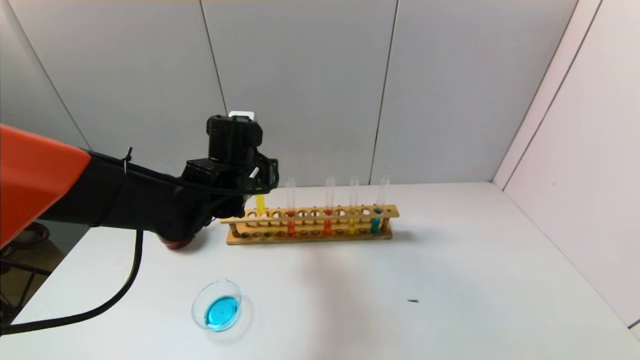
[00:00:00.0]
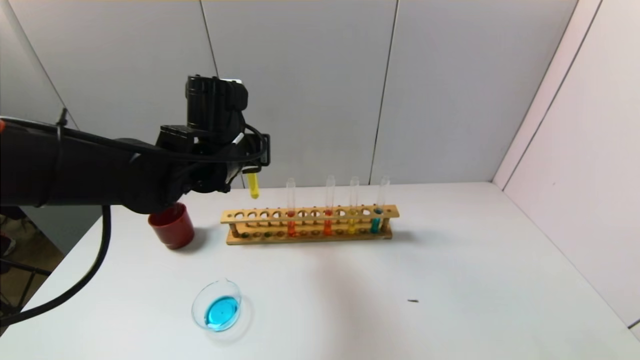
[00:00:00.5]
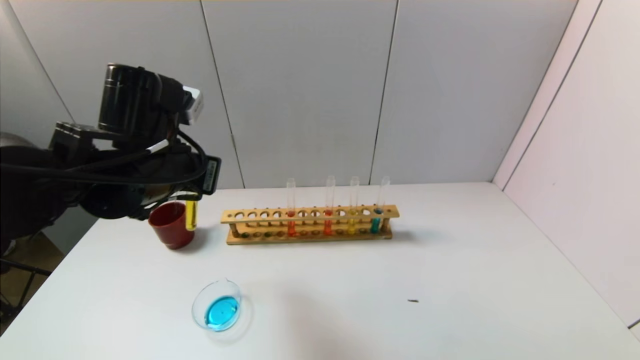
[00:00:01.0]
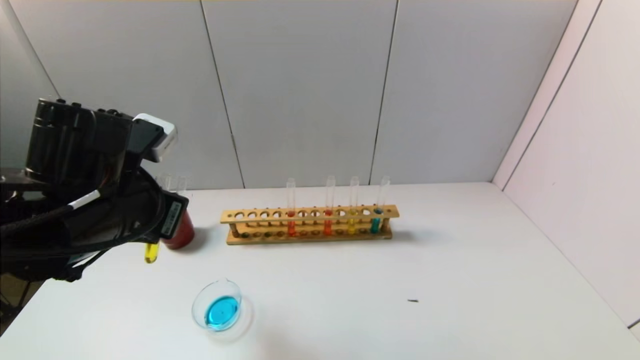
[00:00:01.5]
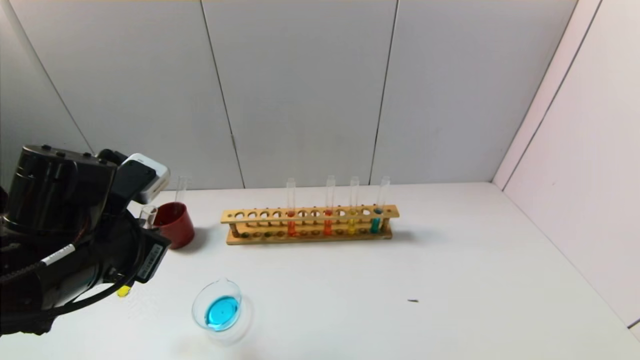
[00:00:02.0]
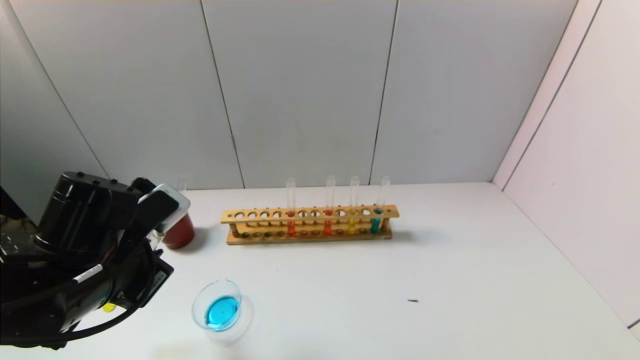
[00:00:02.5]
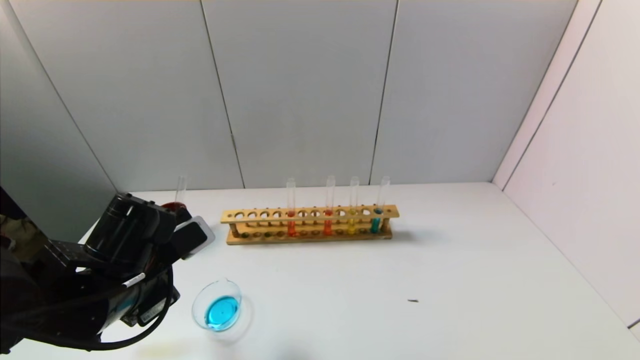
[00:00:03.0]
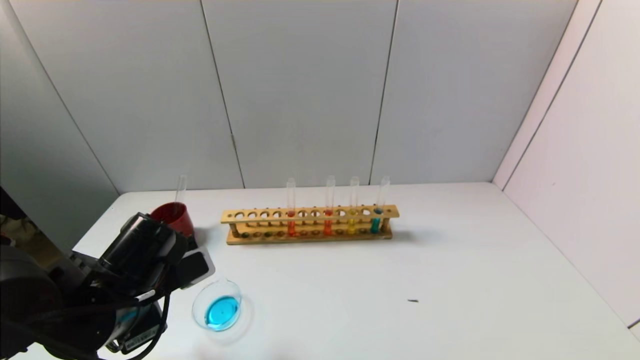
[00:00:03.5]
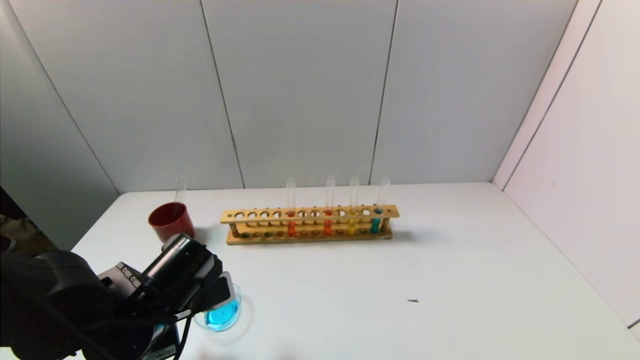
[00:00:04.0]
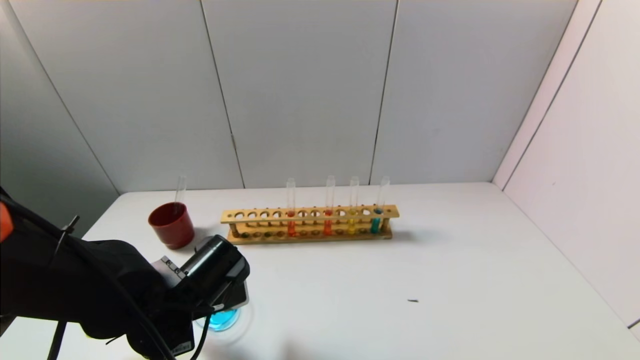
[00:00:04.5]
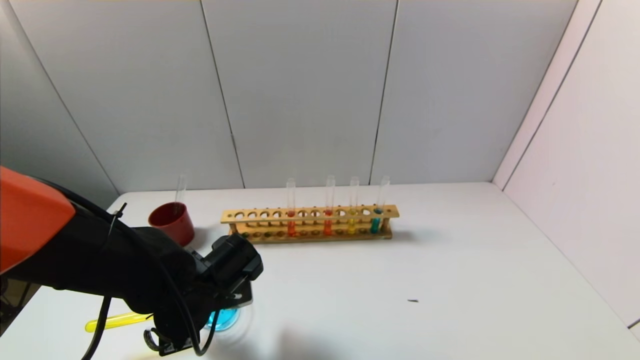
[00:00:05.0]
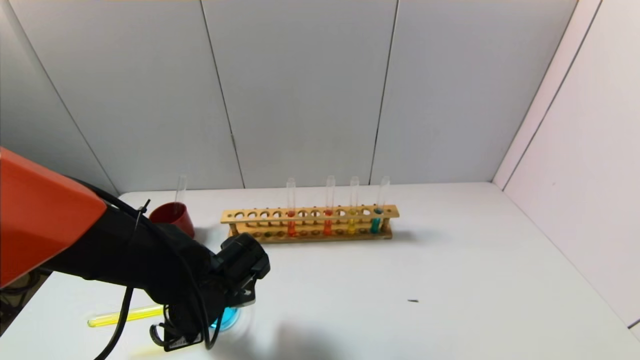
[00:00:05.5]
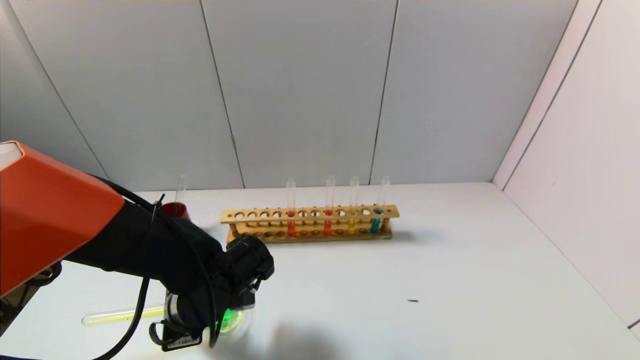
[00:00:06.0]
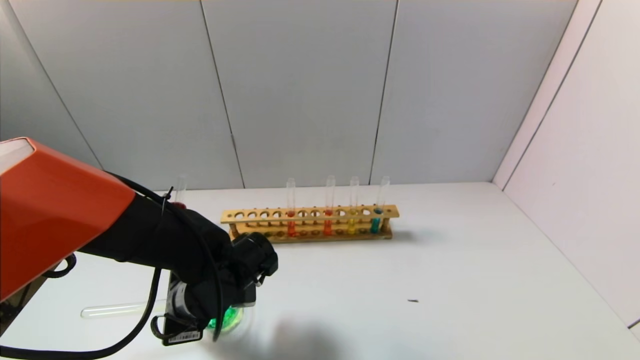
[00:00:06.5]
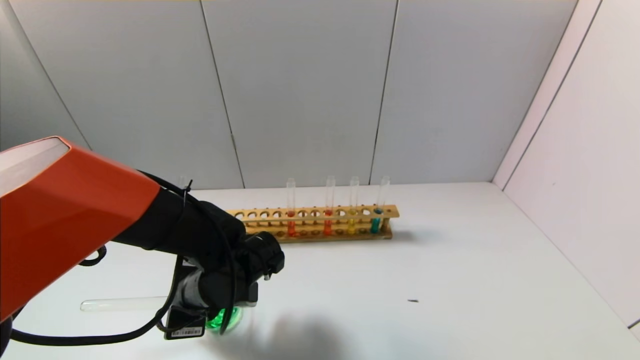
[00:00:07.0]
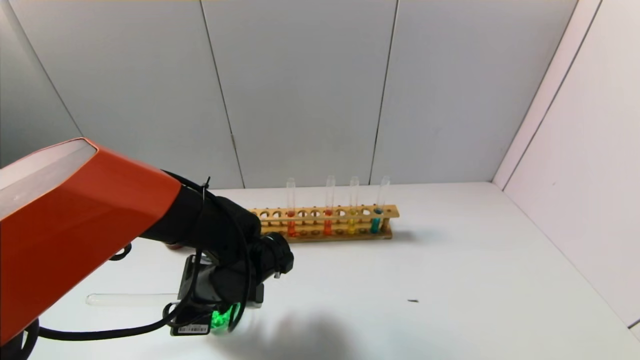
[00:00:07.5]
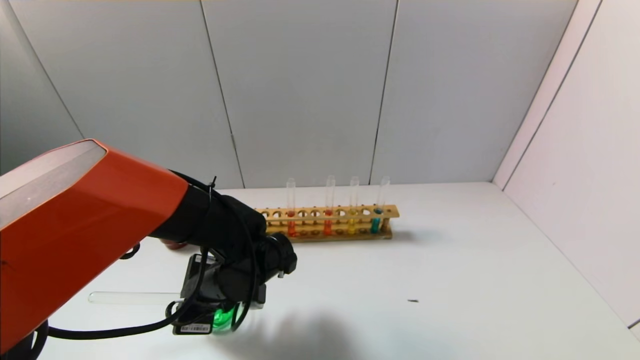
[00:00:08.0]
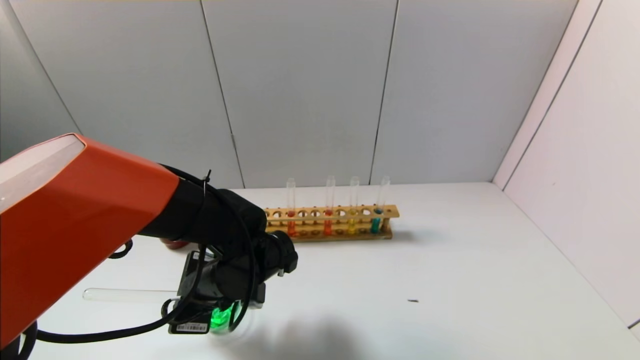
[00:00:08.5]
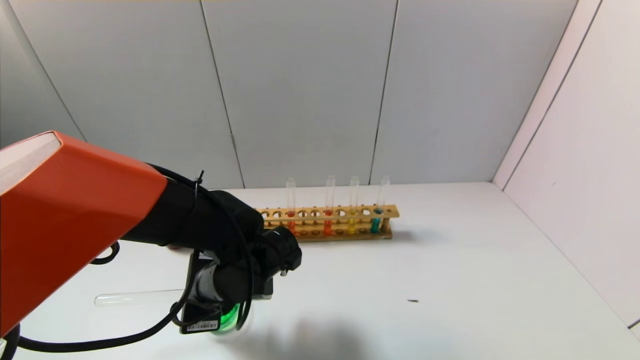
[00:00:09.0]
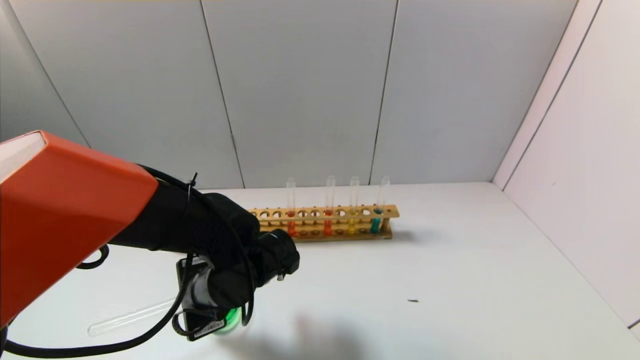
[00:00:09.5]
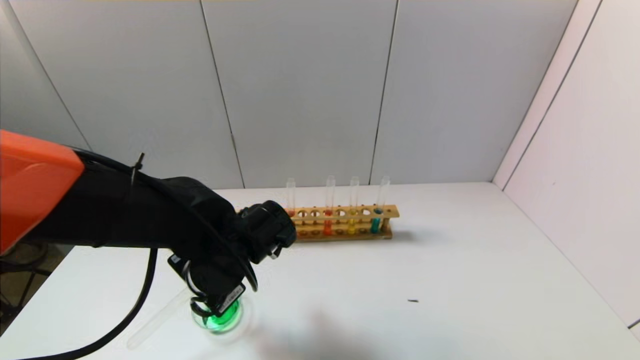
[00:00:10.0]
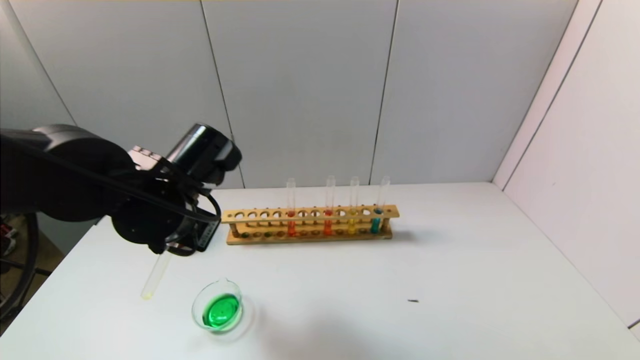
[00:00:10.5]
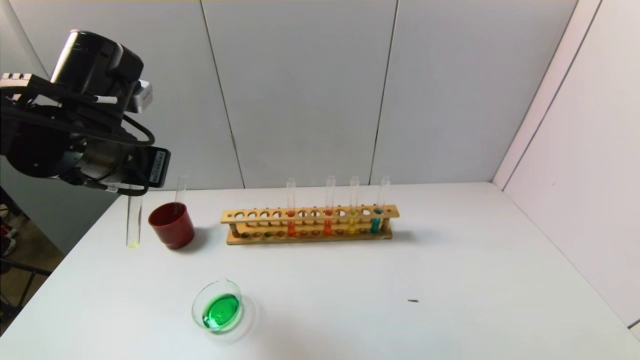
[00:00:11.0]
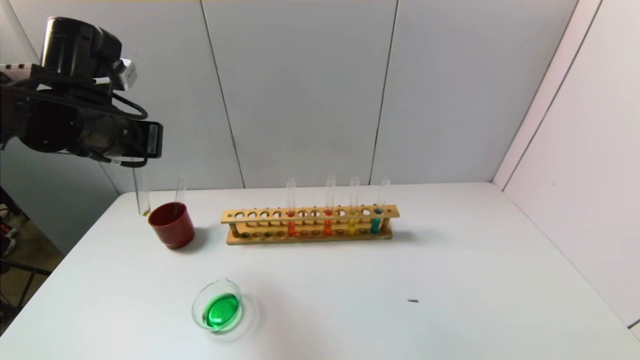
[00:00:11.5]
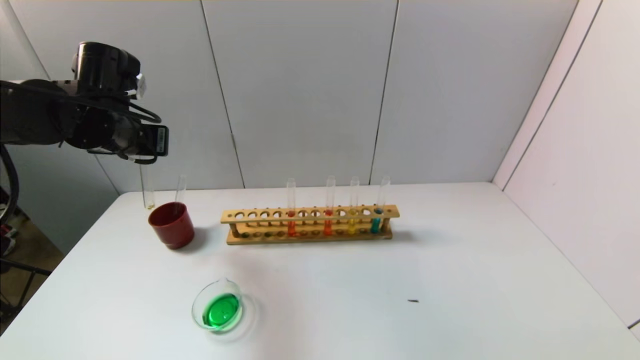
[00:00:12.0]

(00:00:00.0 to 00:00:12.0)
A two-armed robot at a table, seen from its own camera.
Task of the whole recording: pick up the test tube with yellow pigment and the test tube with blue pigment by grippers and pour them into the beaker.
Step, 00:00:00.0 - 00:00:07.0: Pour the yellow reagent into the graduated cylinder with the left gripper.
00:00:00.0 - 00:00:02.0: The left gripper goes approximately 20 cm backward and to the left.
00:00:02.0 - 00:00:04.0: The left gripper moves downward, roughly 10 cm.
00:00:04.0 - 00:00:06.0: The left gripper changes place by about 5 cm.
00:00:06.0 - 00:00:08.0: The grippers stay close to where they were, moving slightly.
00:00:08.0 - 00:00:10.0: The left gripper moves upward, approximately 5 cm.
00:00:10.0 - 00:00:12.0: The left gripper goes roughly 25 cm to the left, upward and forward.

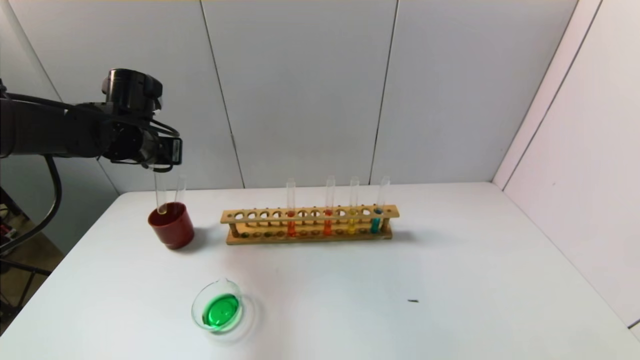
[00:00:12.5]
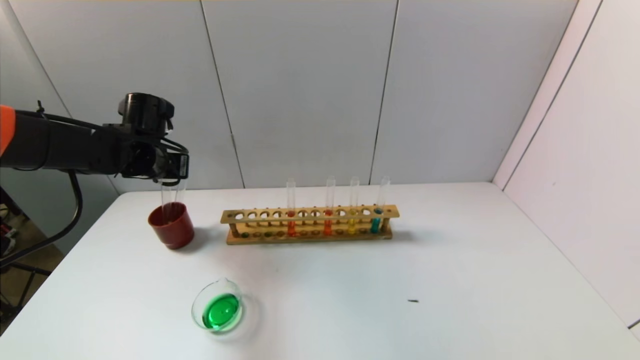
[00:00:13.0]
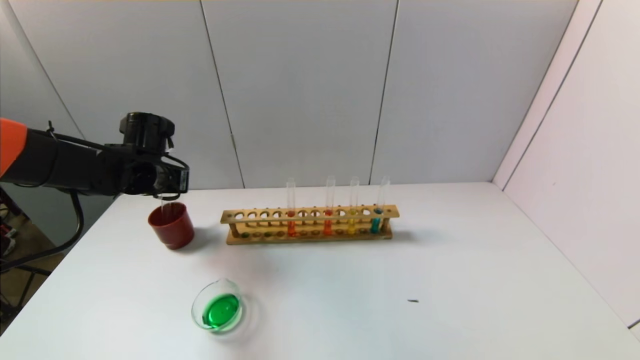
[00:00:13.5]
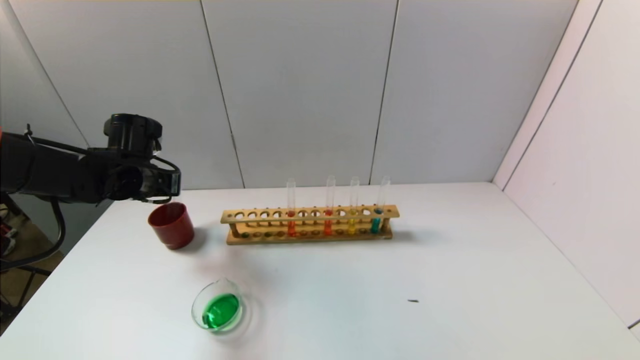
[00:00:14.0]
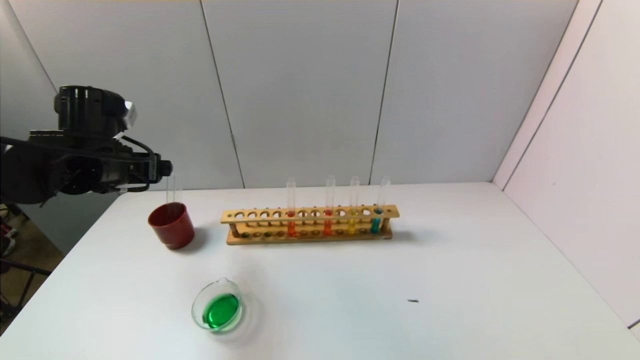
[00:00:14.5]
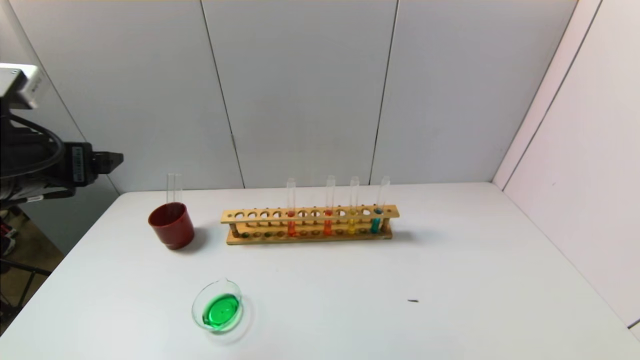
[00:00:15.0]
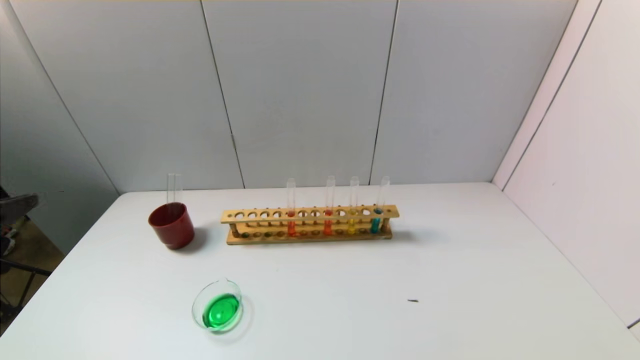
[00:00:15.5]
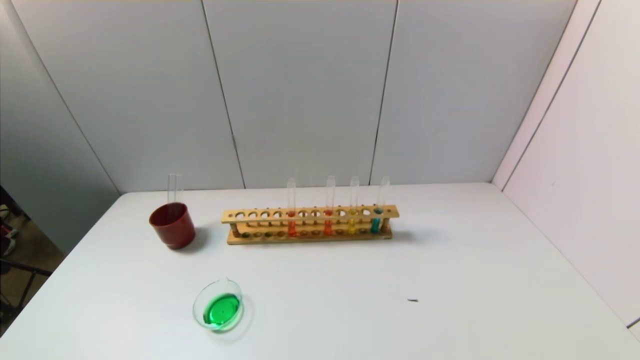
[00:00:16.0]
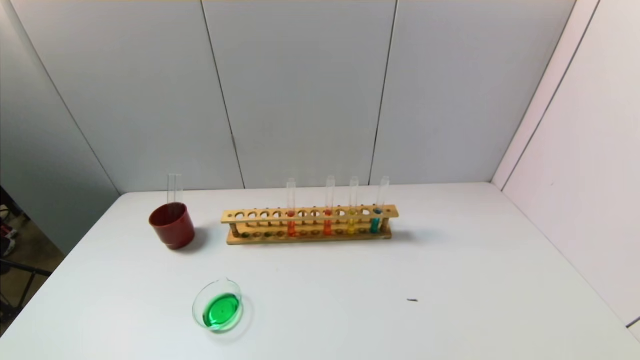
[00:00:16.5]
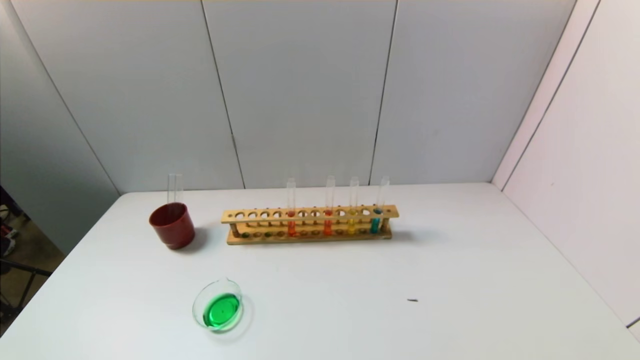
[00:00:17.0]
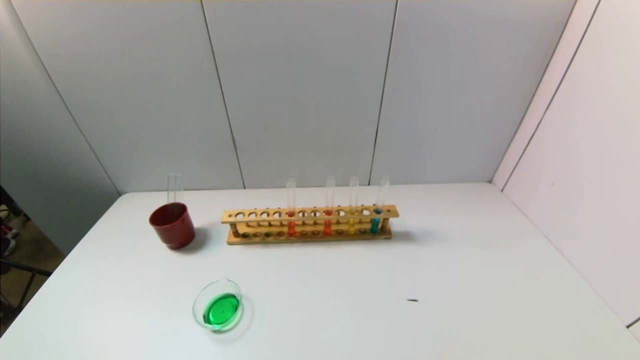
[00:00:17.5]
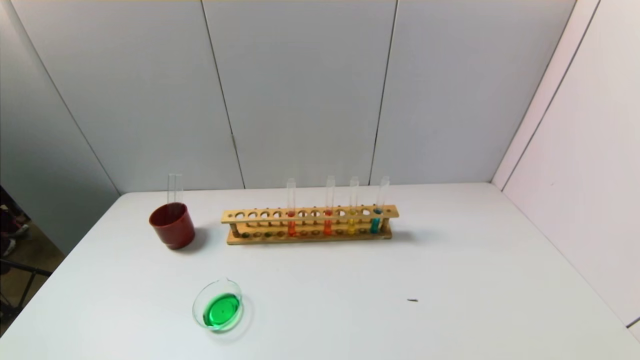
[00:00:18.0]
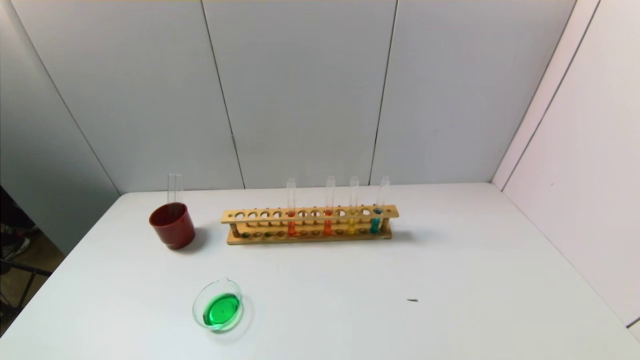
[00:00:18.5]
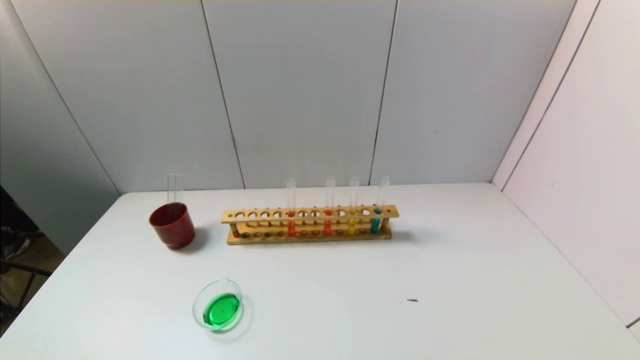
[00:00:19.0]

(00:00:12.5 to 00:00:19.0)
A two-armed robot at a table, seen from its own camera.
Task of the whole recording: pick up the test tube with yellow pigment and the test tube with blue pigment by grippers and pour them into the beaker.
00:00:12.5 - 00:00:14.5: The left gripper shifts approximately 5 cm backward, and opens up.
00:00:14.5 - 00:00:17.0: The left gripper heads backward, covering approximately 35 cm.
